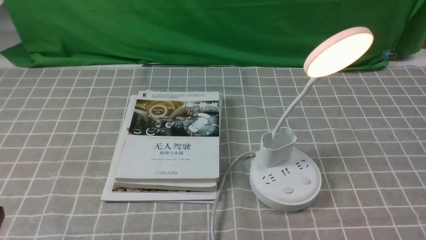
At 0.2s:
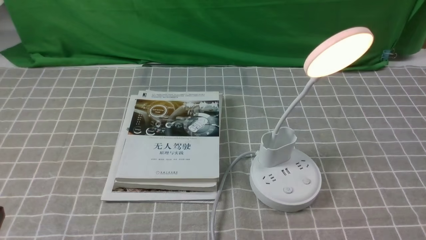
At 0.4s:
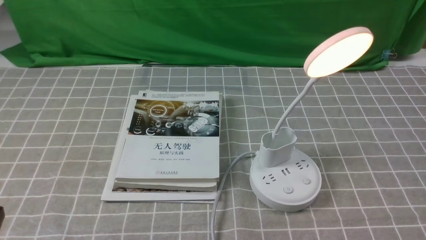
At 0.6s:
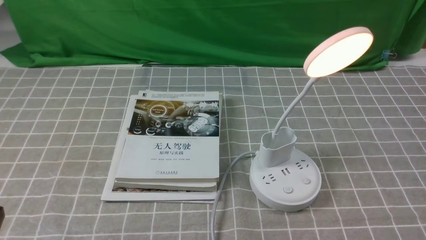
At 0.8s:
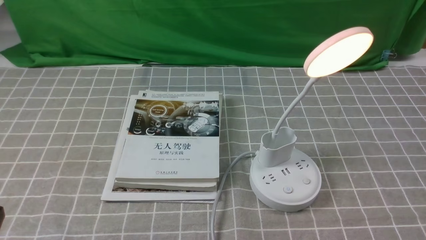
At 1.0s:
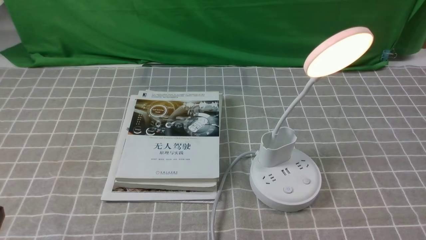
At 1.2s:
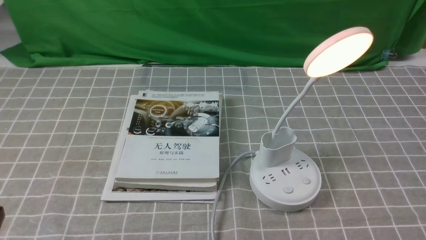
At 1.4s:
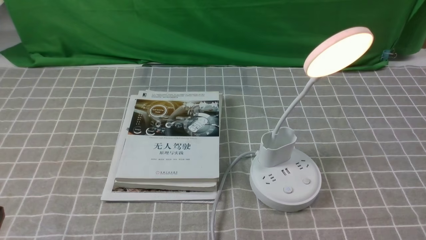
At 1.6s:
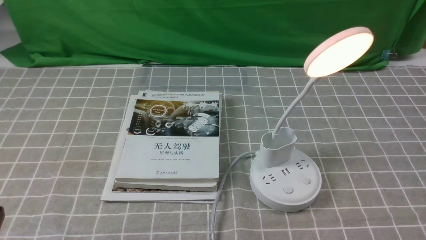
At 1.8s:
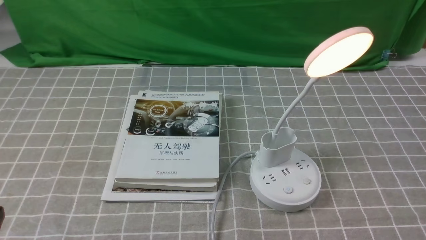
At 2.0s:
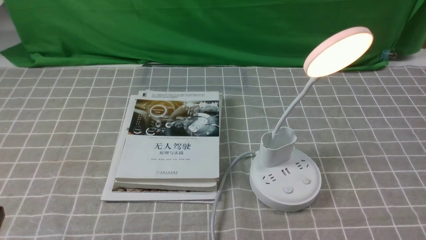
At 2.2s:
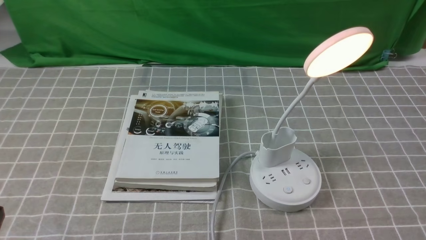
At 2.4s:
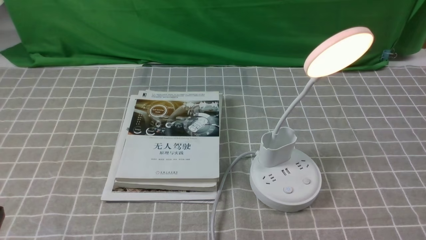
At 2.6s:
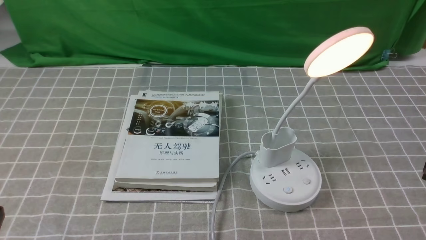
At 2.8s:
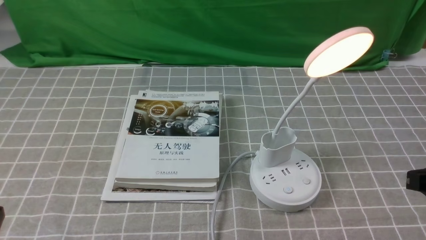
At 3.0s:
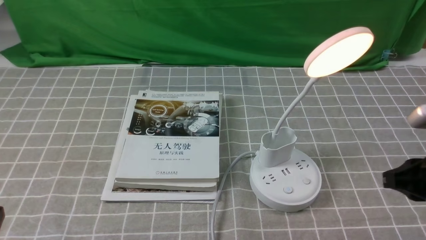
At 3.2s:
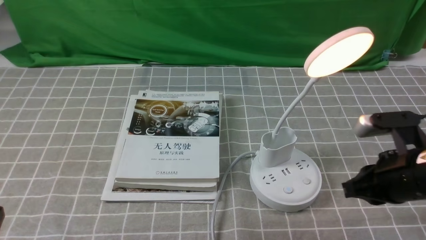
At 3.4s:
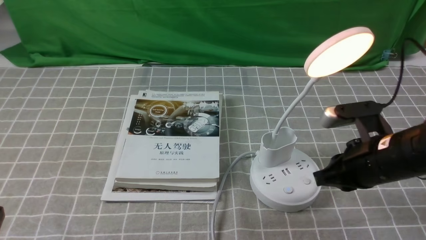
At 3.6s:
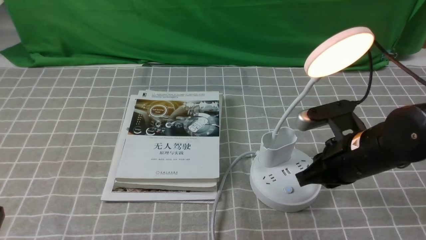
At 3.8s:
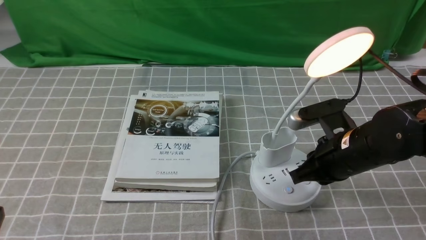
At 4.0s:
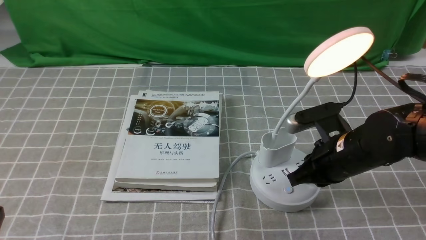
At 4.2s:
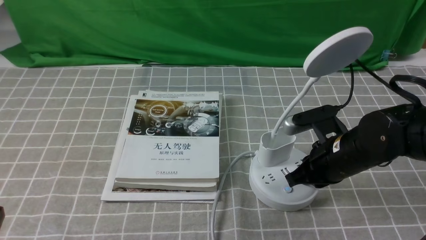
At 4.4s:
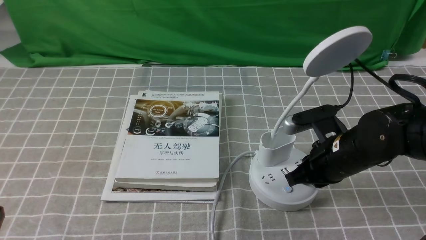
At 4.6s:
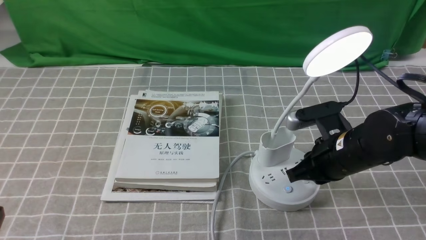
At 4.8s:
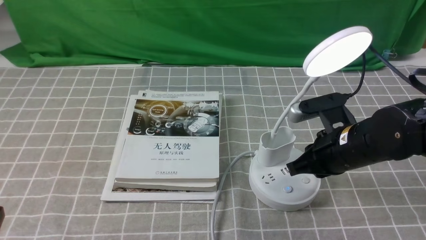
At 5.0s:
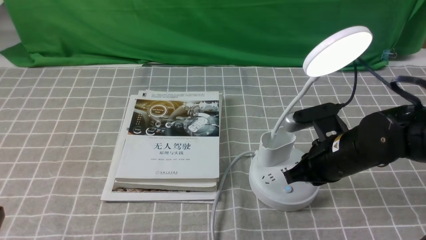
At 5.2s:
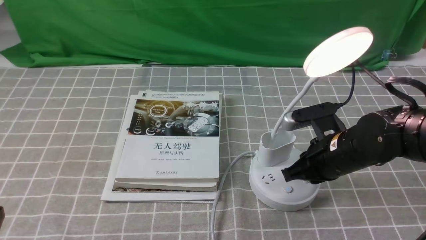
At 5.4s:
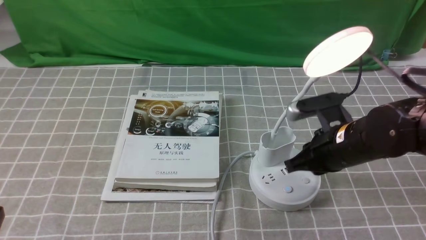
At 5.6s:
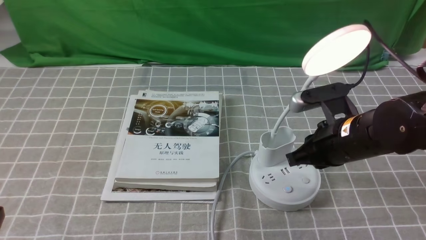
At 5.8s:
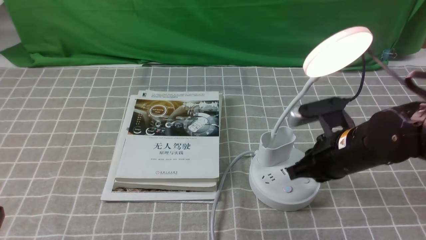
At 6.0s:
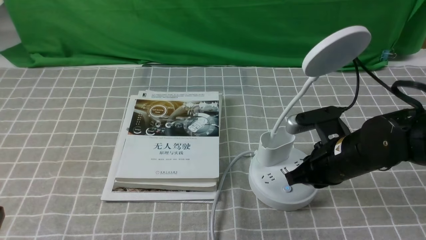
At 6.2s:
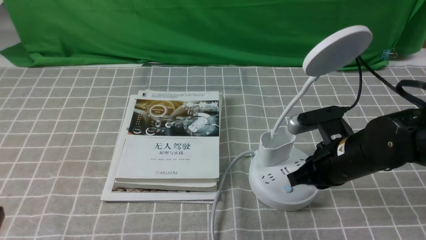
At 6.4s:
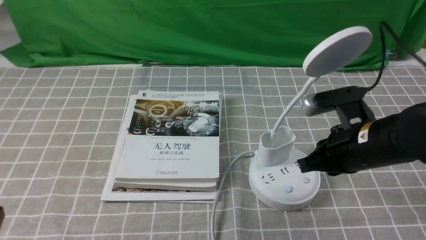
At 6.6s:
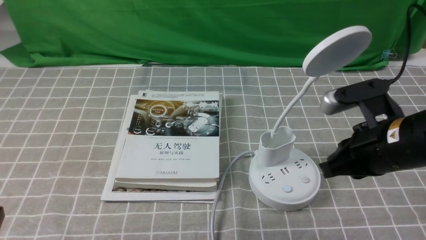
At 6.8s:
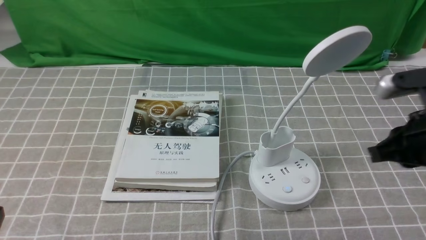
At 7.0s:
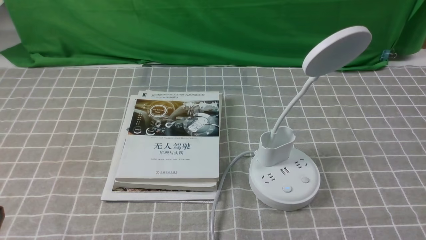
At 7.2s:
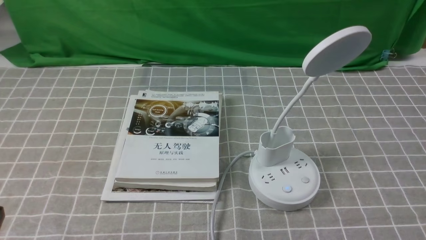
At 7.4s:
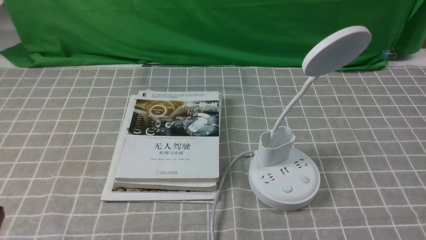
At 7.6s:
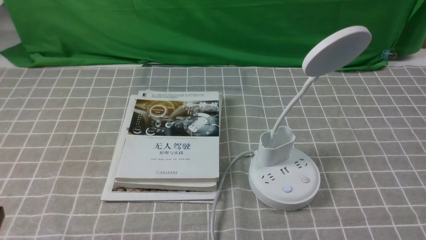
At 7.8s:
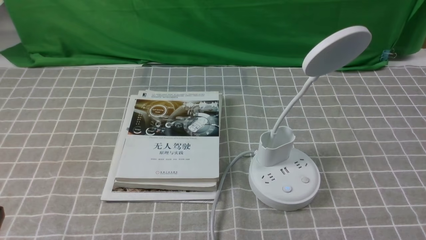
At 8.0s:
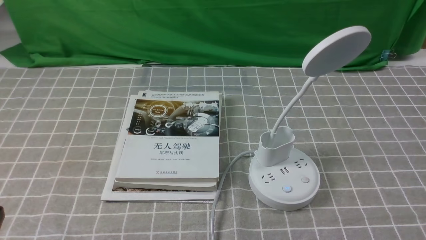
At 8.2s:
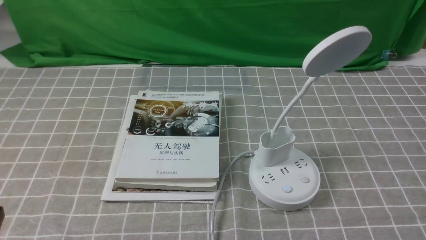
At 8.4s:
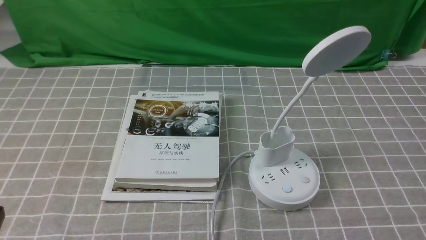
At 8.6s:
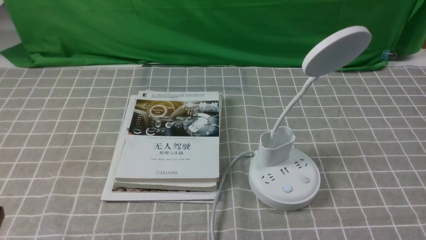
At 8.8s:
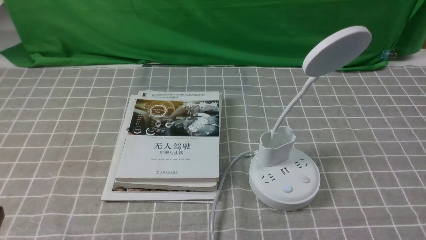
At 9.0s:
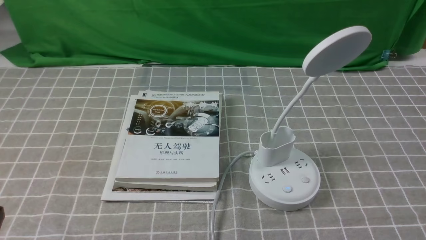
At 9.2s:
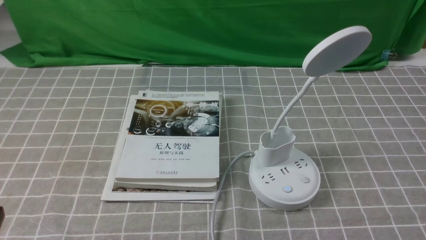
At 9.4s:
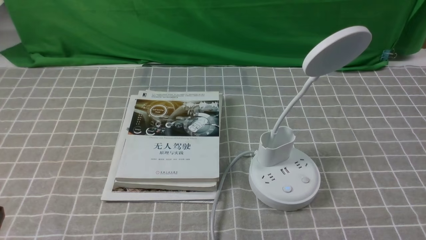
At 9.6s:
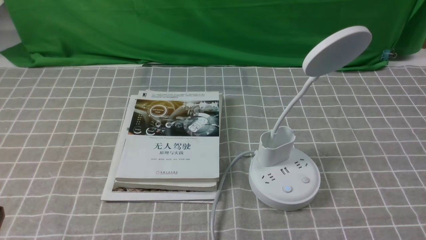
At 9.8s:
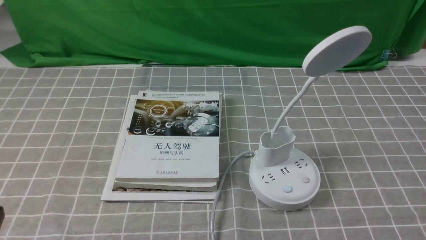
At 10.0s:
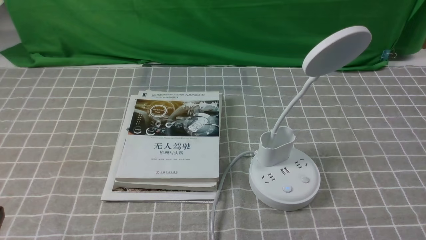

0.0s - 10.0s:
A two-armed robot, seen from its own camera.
Task of the whole recording: turn off the desk lamp on the grey coffee tablecloth by hand.
Step, 0.0s - 6.2s: use the right arm to press the button switch on the lamp holder.
2.8s - 4.2s: The right gripper is displaced to the left, forward and downward by roughly 20 cm, and closes.
4.2s - 5.8s: The grippers stay close to where they were, moving slightly.
5.8s - 7.2s: The right gripper moves backward, to the right and upward, roughly 20 cm.
8.6s - 10.0s: The two grippers keep their place.

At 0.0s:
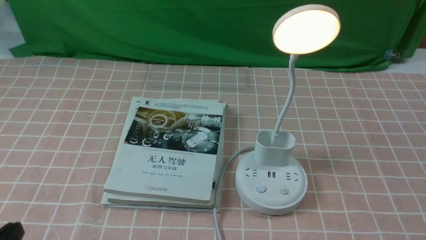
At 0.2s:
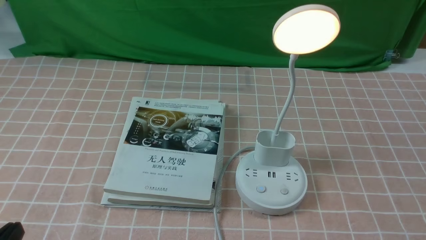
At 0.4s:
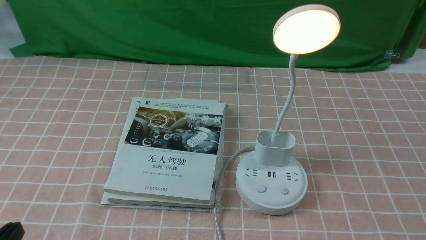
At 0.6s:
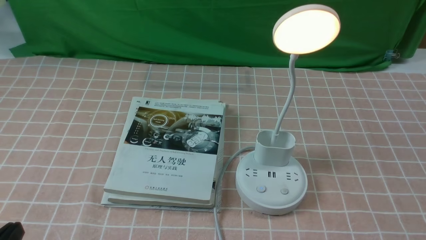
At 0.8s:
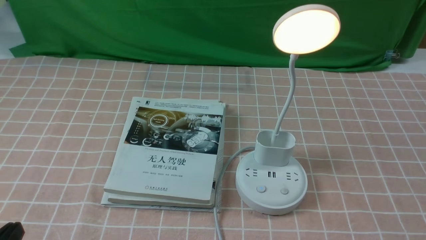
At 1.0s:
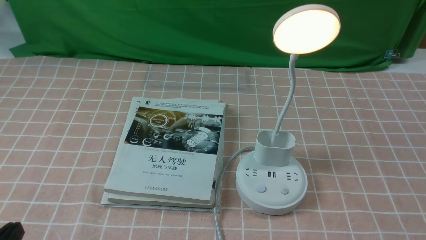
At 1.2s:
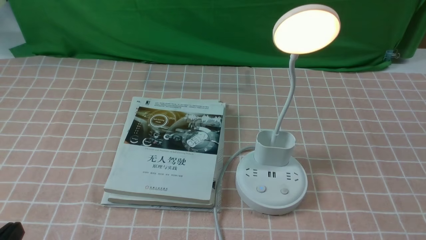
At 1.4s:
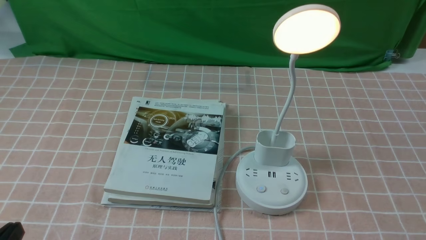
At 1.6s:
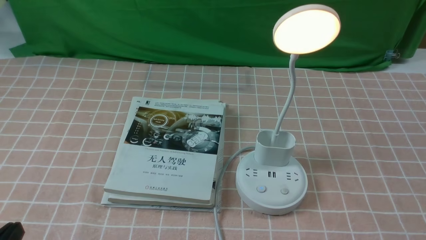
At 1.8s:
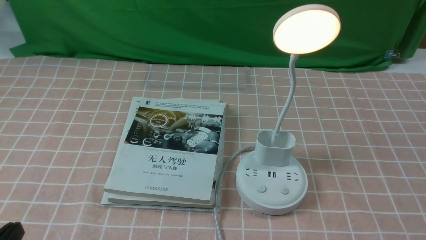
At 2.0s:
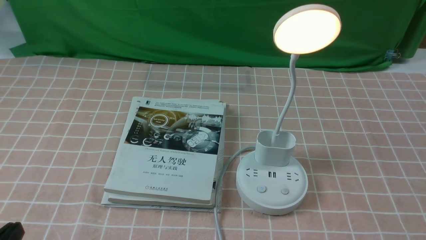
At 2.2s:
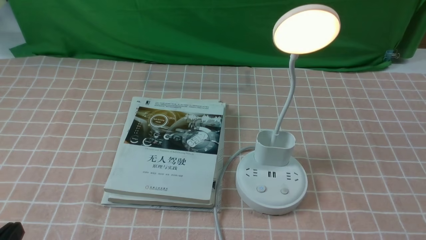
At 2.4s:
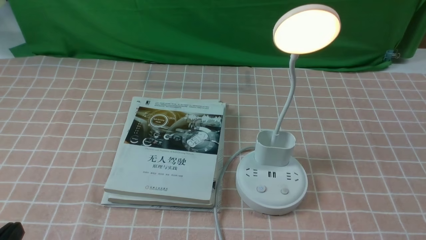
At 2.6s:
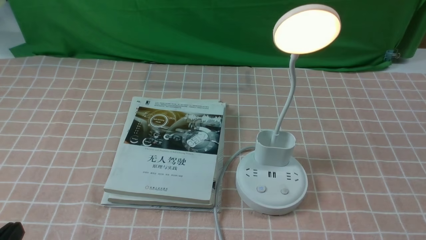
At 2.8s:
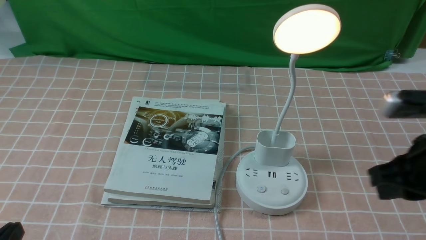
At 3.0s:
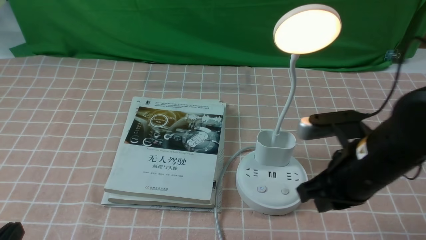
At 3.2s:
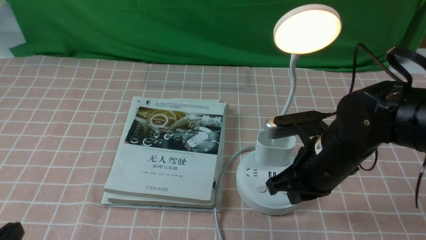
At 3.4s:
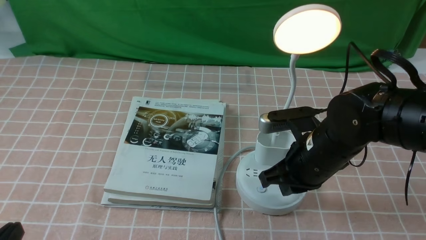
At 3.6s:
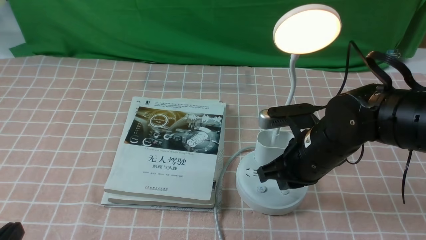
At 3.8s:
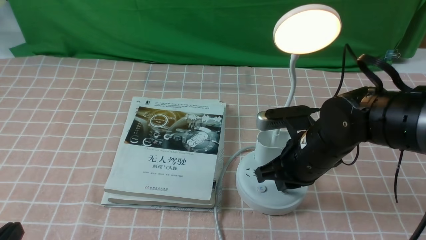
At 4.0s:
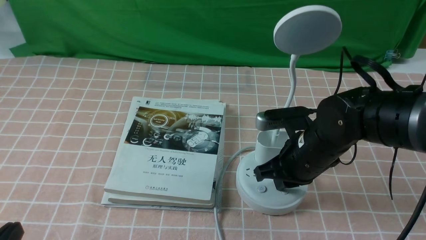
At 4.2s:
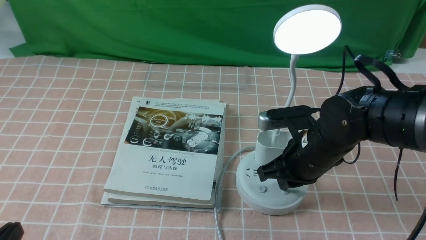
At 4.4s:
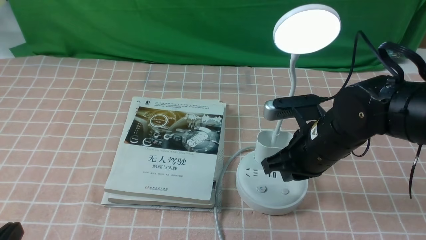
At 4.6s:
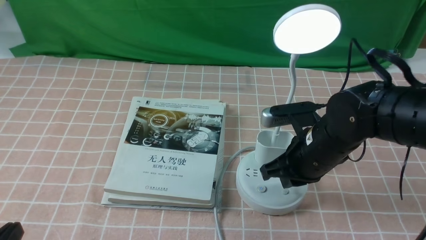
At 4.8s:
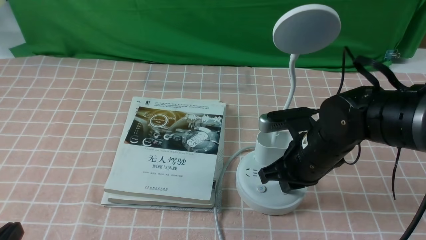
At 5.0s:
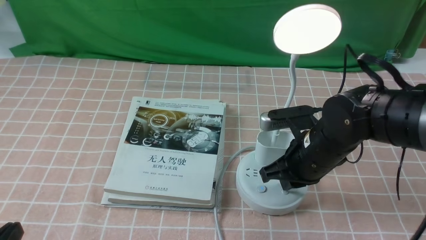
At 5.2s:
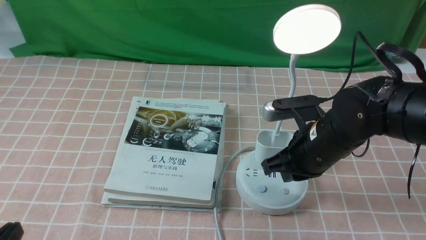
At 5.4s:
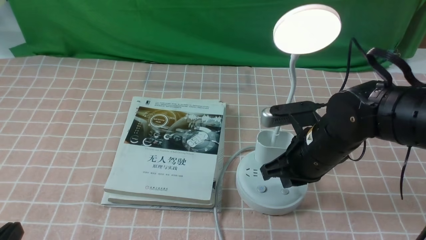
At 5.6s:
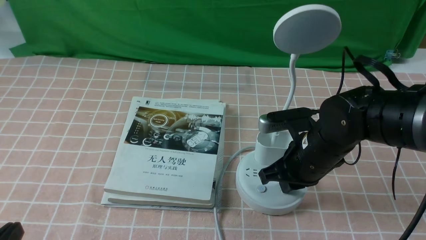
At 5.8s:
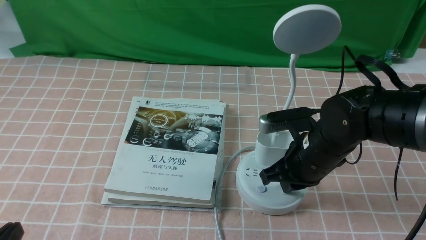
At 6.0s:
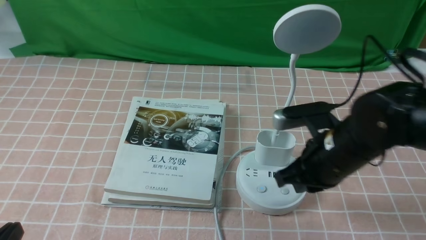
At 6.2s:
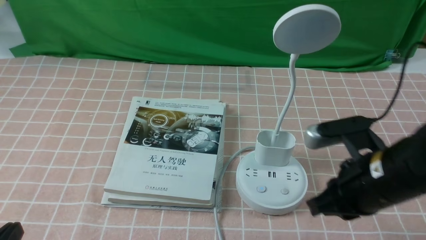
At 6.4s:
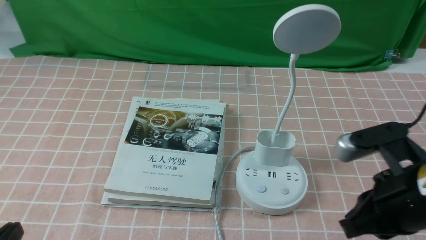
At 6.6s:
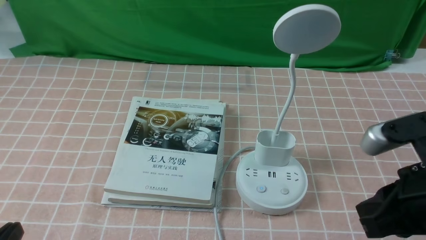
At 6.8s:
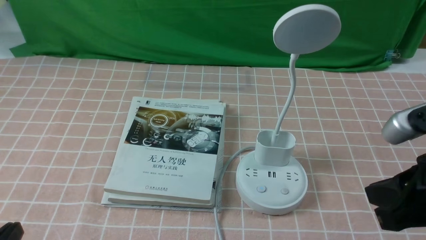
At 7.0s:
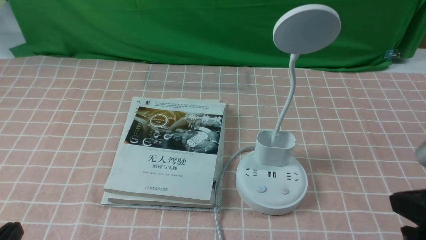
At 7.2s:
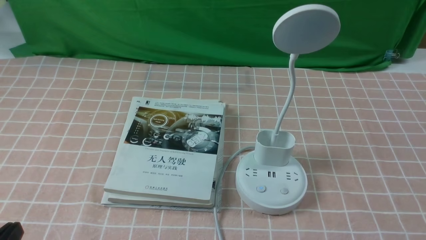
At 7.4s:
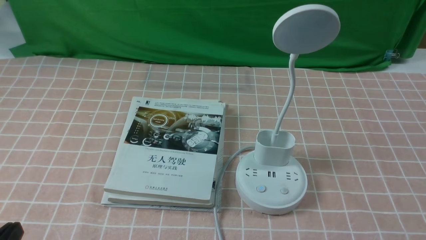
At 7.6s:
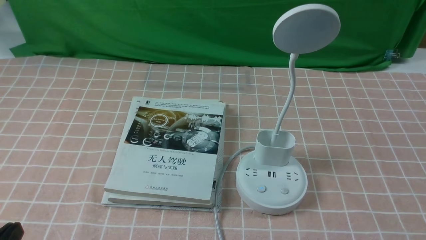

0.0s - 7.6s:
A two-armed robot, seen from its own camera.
Task of the whole recording: turn off the table lamp on the pink coffee tablecloth by hand.
Step, 0.0s - 5.8s: use the right arm to press the button switch on the lamp holder.
1.6s - 3.0s: The right gripper moves forward and to the left, about 25 cm, and closes its fingers.
3.0s - 4.6s: The right gripper ends up some 10 cm from where it was.
4.6s - 6.0s: The right gripper shifts by some 5 cm.
6.0s - 7.6s: The right gripper moves backward and to the right, some 25 cm.
